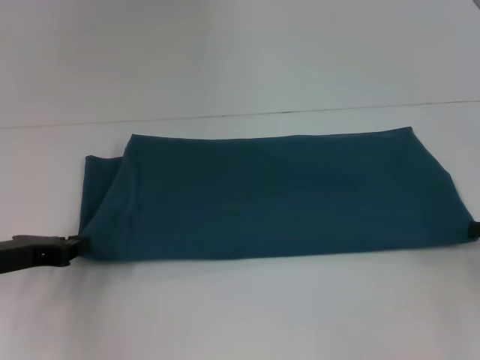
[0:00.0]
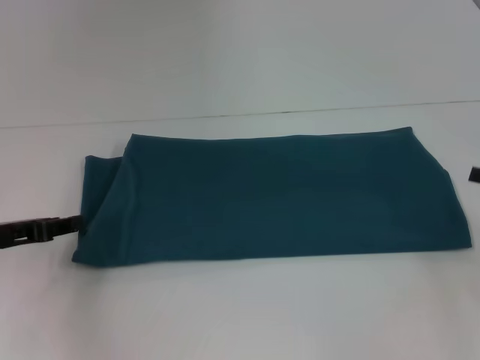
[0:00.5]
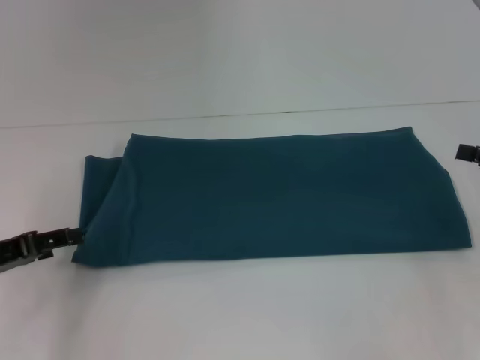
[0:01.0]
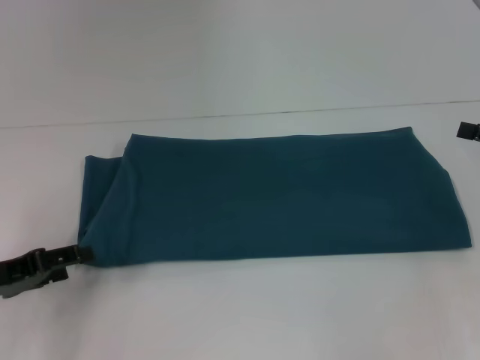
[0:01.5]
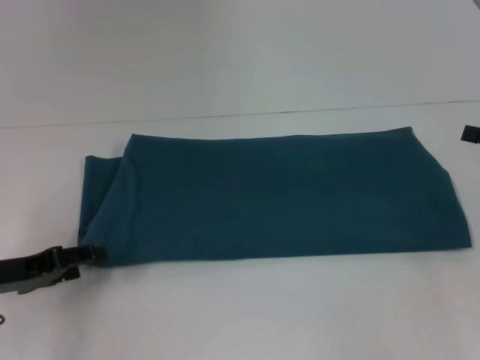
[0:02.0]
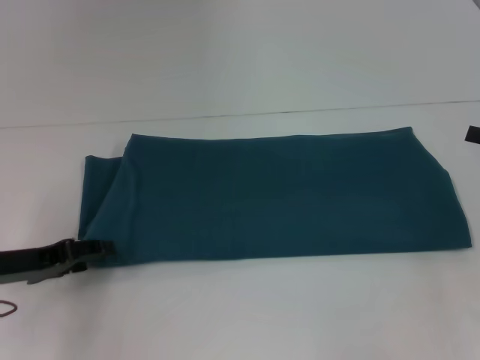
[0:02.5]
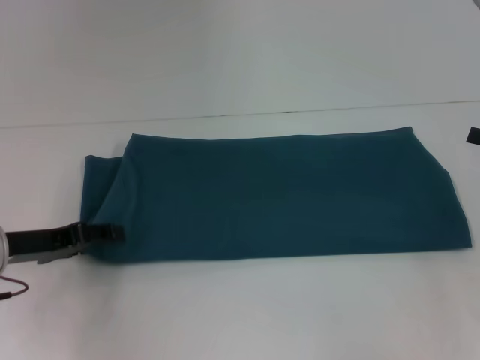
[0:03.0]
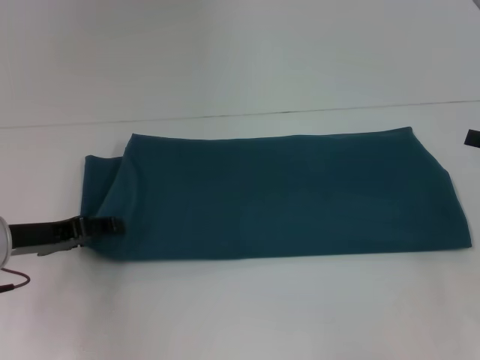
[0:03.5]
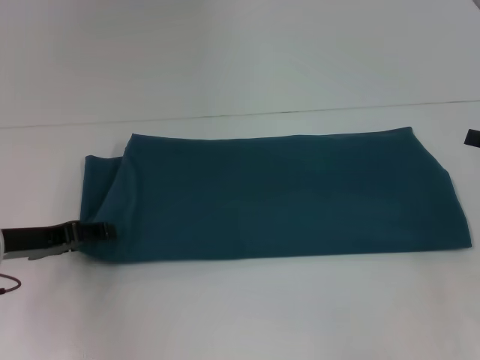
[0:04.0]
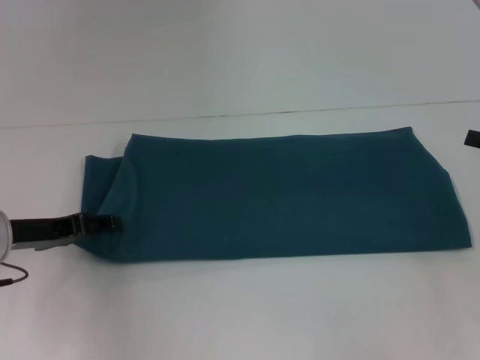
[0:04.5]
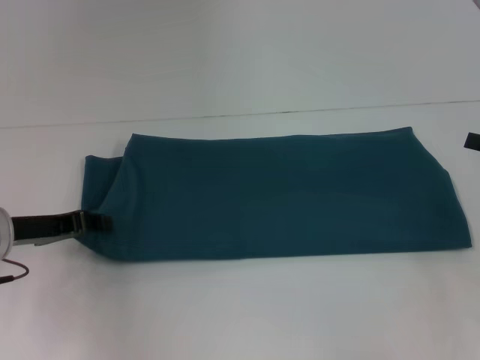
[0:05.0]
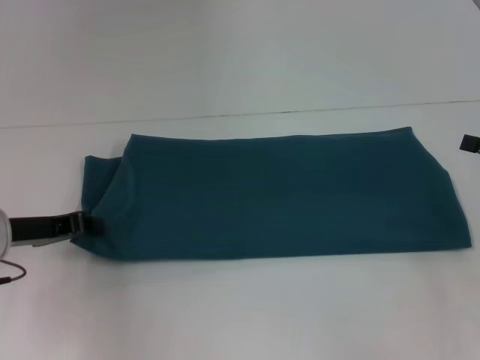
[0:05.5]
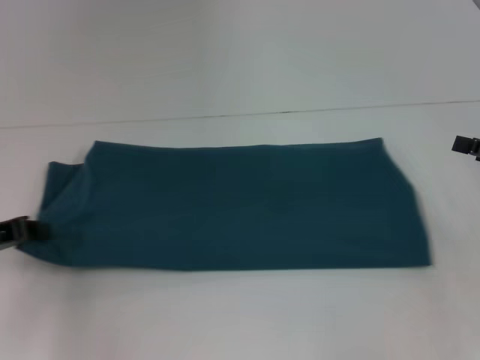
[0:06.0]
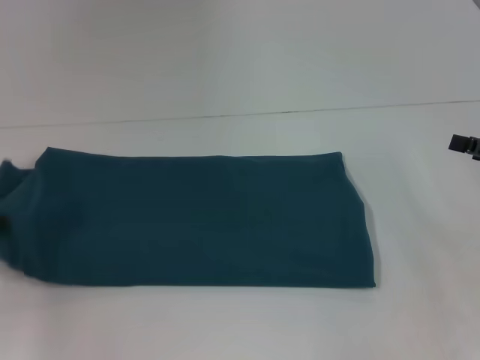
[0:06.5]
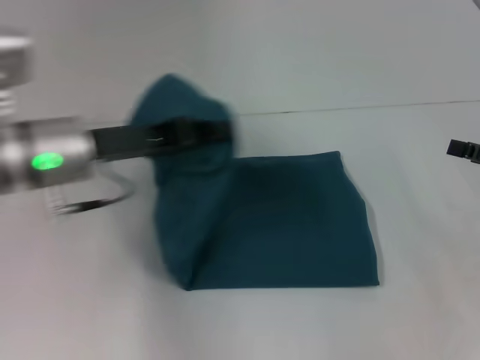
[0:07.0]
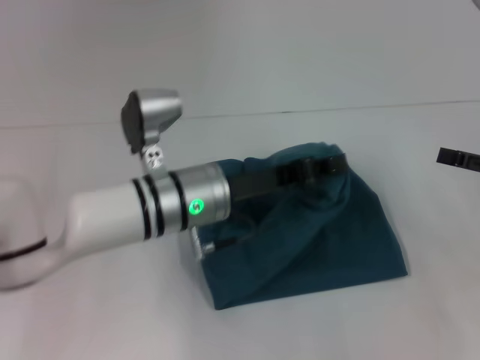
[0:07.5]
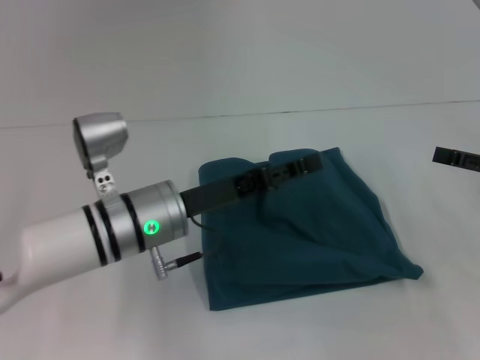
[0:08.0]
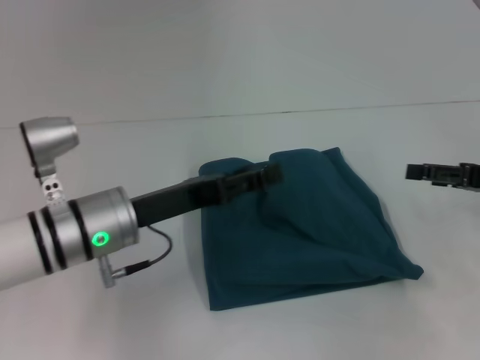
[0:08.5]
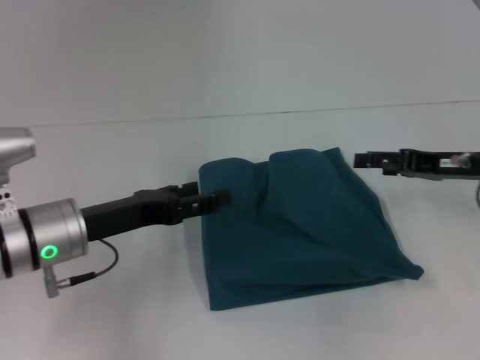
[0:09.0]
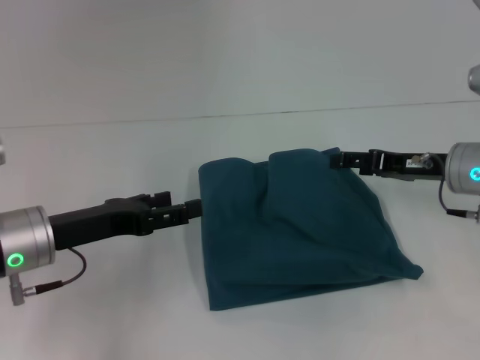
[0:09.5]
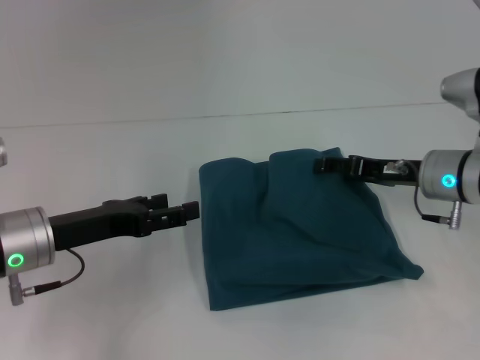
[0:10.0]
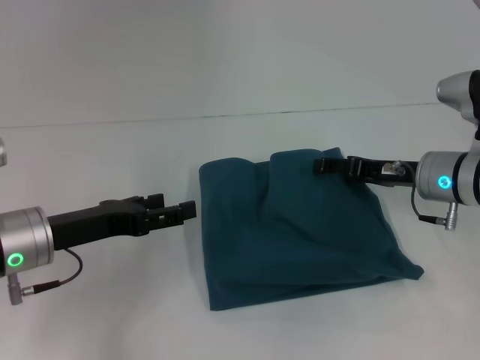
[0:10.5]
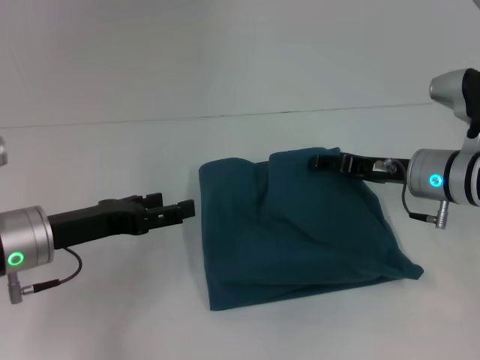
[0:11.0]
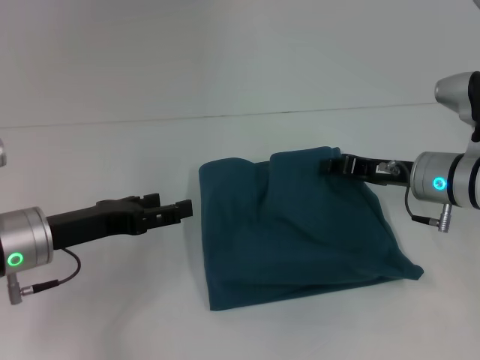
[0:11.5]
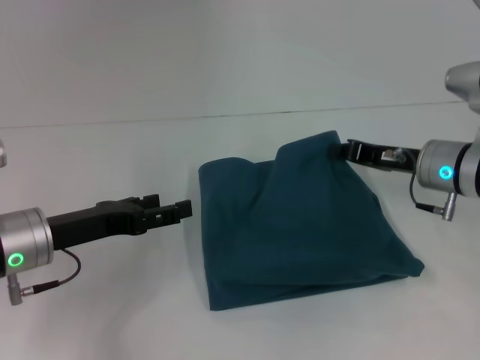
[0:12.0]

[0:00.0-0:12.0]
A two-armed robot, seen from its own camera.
Step, 0:00.0 to 0:07.5: Fold the clothes to the left.
0:00.0 to 0:02.0: The right gripper goes approximately 5 cm upward, and opens up. Meanwhile the left gripper opens.
0:02.0 to 0:04.0: The grippers make only small movements.
0:04.0 to 0:06.0: The left gripper closes up.
0:06.0 to 0:08.0: The left gripper goes left and right, about 30 cm each way, reversing 2 times.
0:08.0 to 0:10.0: The left gripper moves to the left, about 10 cm, and opens up; the right gripper shifts roughly 15 cm to the left and forward.
0:10.0 to 0:12.0: The right gripper closes up.

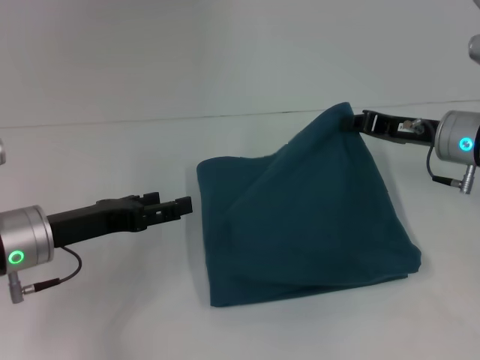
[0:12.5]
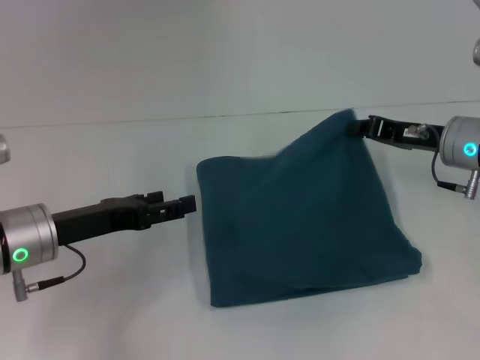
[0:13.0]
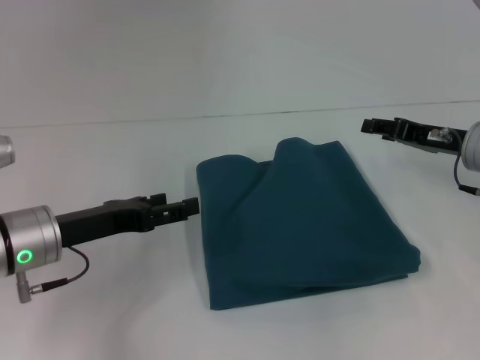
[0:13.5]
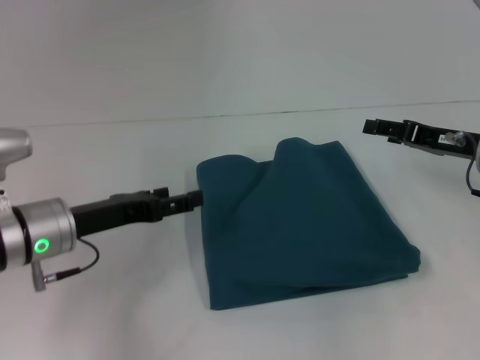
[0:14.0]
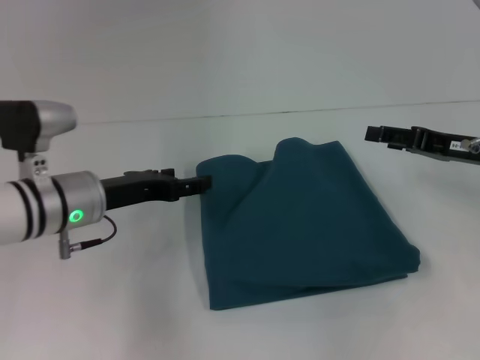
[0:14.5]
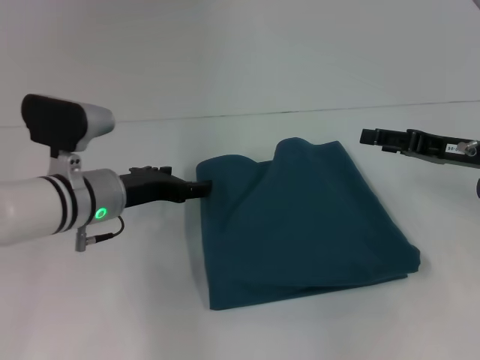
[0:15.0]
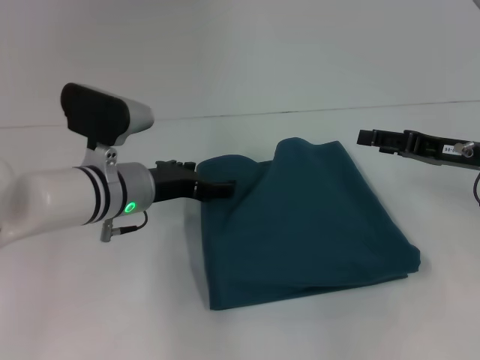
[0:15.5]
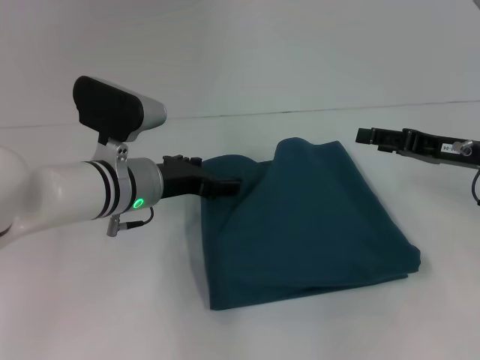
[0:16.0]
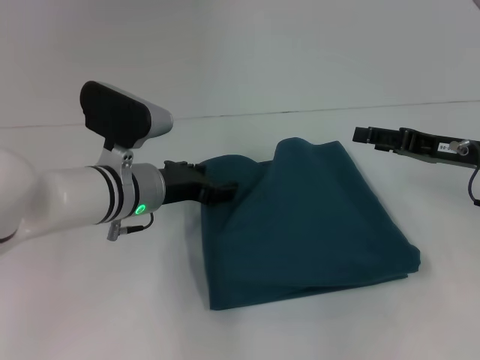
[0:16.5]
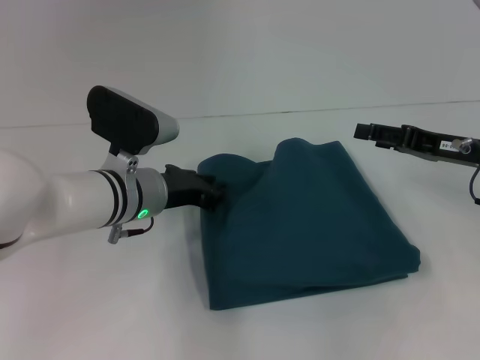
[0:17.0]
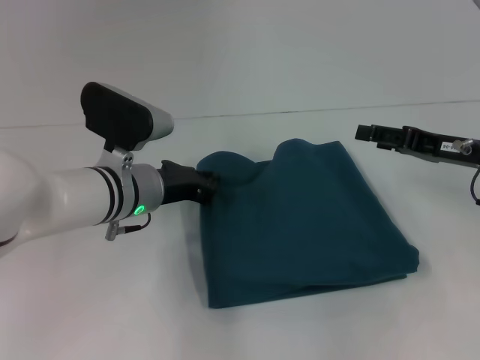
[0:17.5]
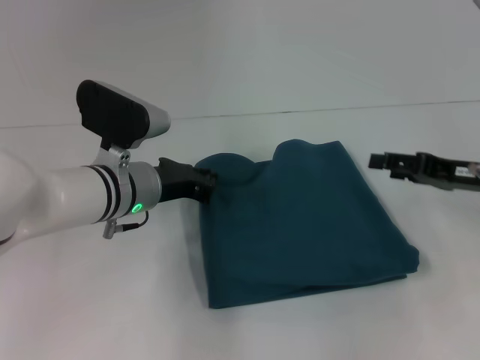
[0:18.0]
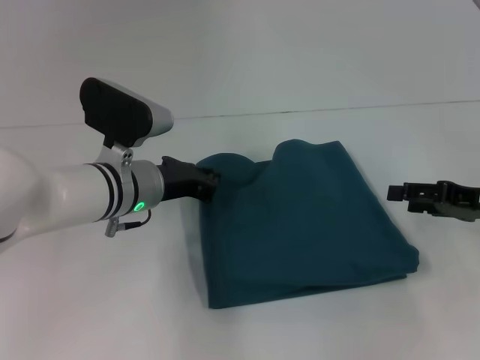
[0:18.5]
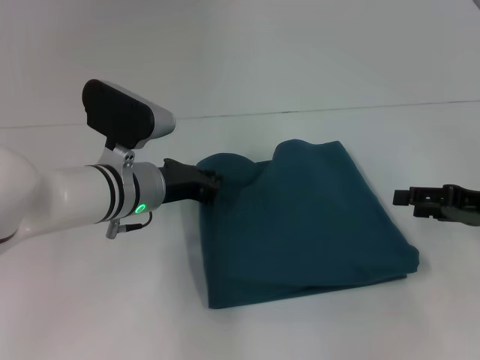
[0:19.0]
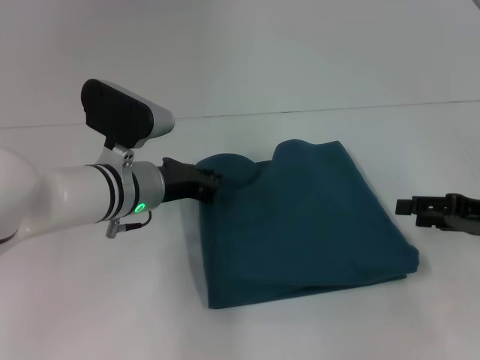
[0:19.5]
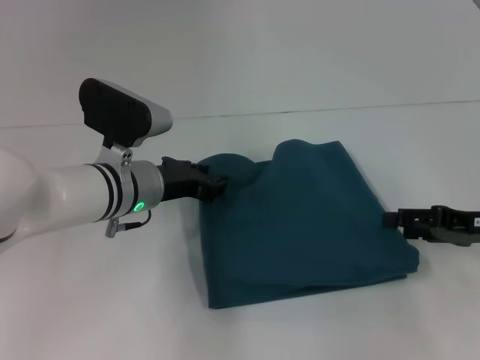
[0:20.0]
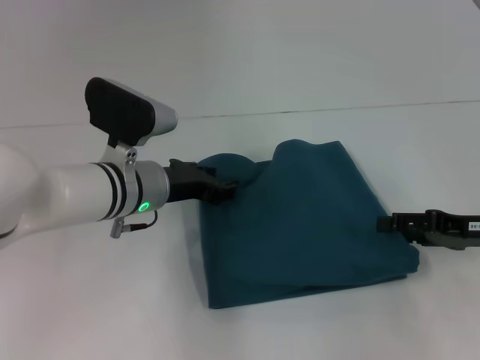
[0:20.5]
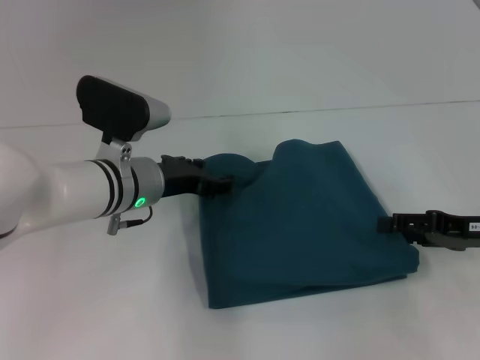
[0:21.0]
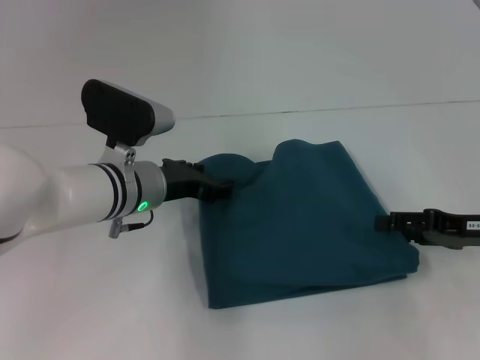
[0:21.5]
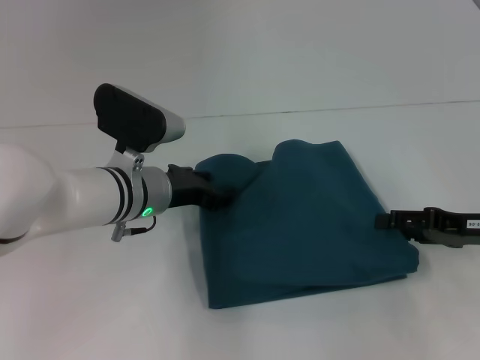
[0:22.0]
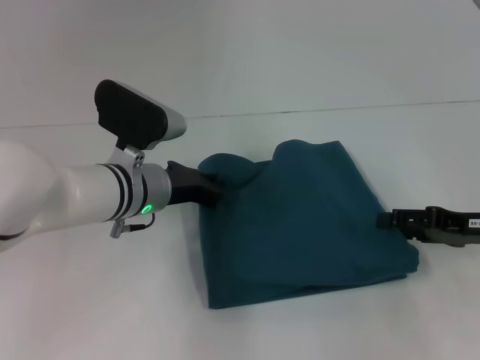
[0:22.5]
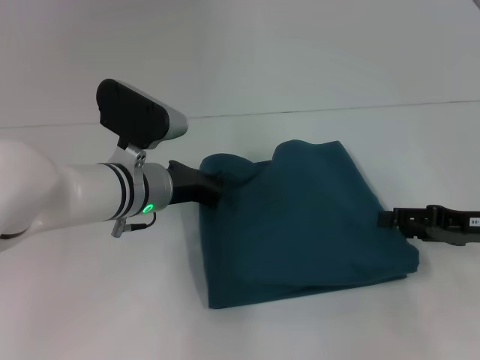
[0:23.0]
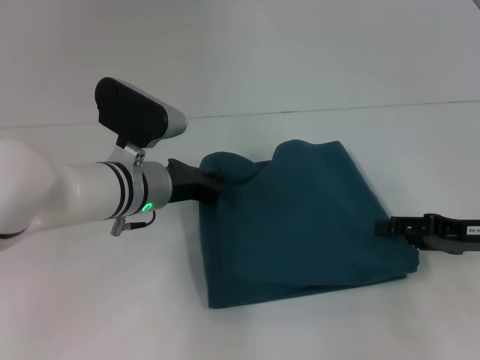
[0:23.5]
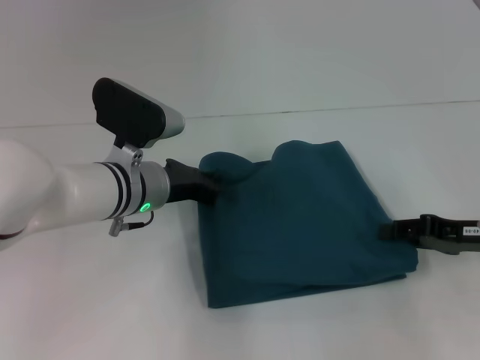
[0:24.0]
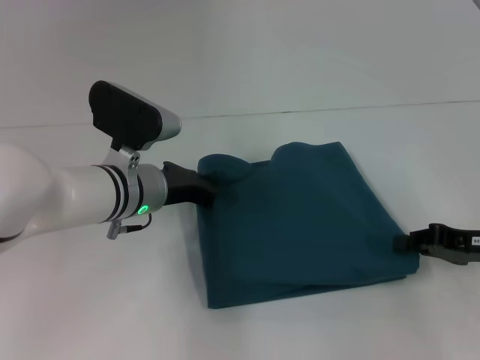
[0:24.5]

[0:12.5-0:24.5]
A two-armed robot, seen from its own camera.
0:12.5 to 0:14.5: The left gripper changes place by some 5 cm, while the right gripper shifts by some 5 cm, and opens up.
0:14.5 to 0:16.5: The left gripper heads to the right, covering about 5 cm.
0:16.5 to 0:18.5: The right gripper ends up roughly 5 cm from where it was. The left gripper closes its fingers.
0:18.5 to 0:20.5: There are only small adjustments of the grippers.
0:20.5 to 0:22.5: Neither gripper changes place.
0:22.5 to 0:24.5: The right gripper closes.

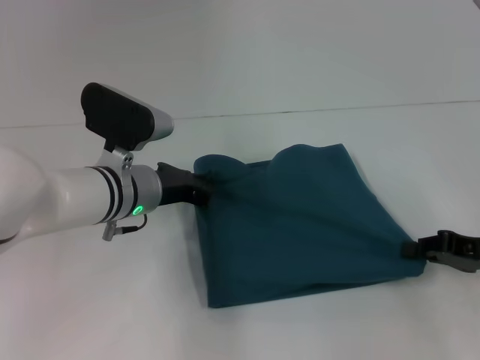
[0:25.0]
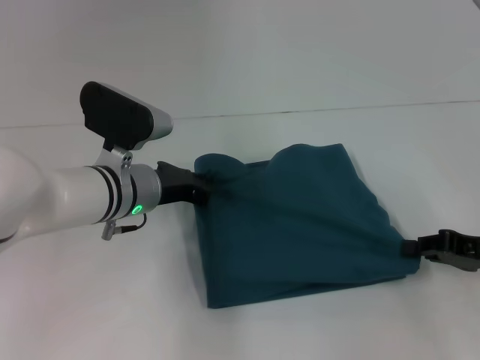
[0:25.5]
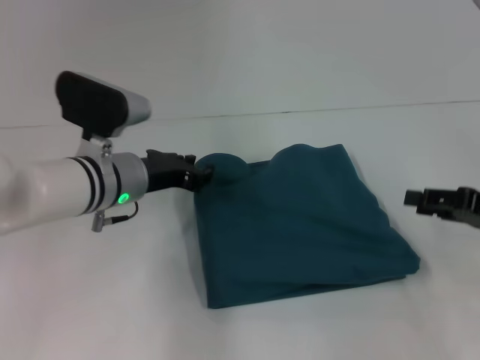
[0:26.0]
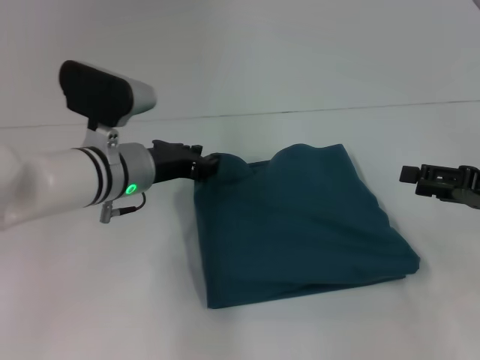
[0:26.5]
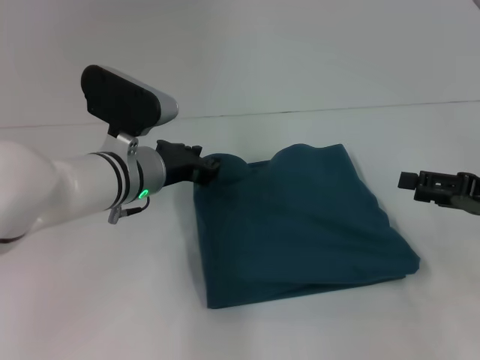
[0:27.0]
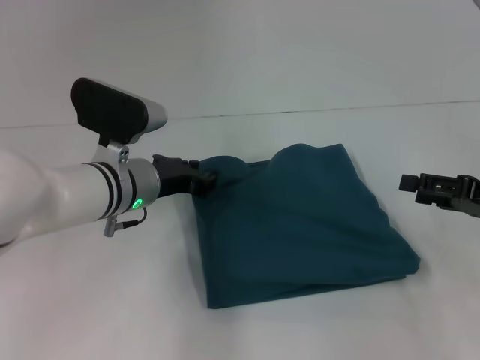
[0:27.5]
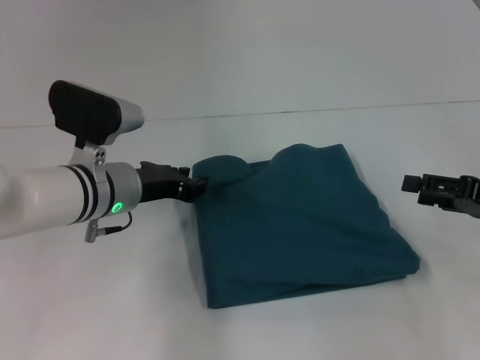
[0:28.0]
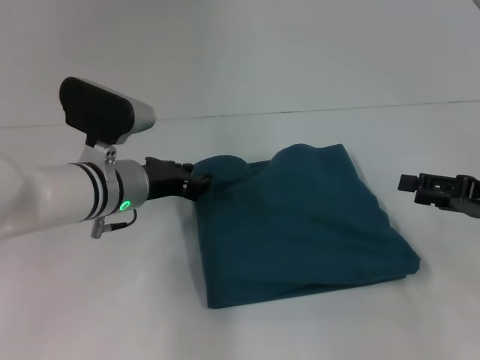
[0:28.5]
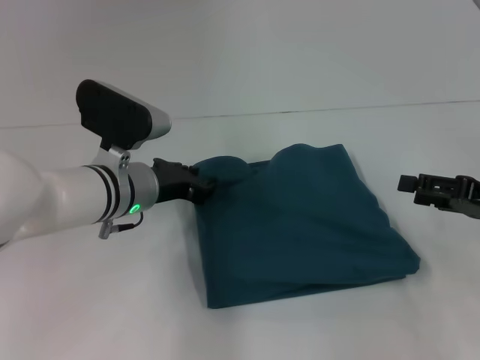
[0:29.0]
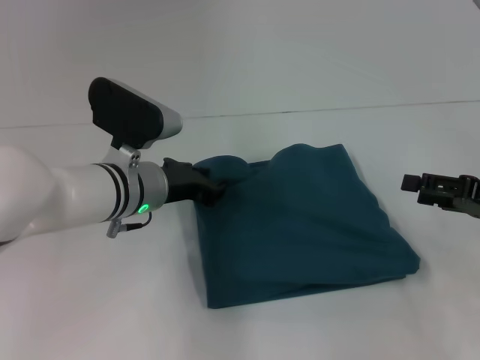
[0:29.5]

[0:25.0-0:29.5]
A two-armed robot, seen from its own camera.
0:25.0 to 0:27.0: The right gripper opens its fingers.
0:27.0 to 0:29.5: There are only small adjustments of the grippers.
